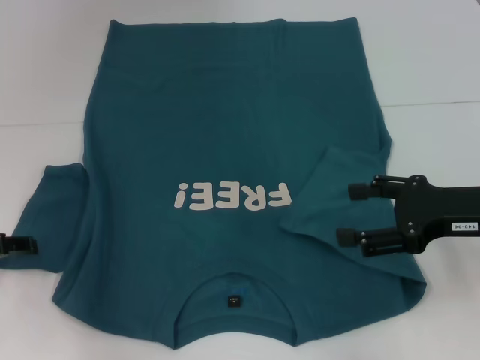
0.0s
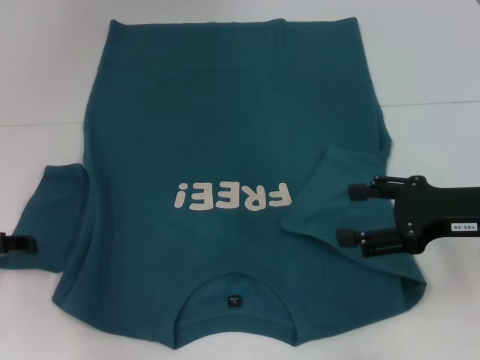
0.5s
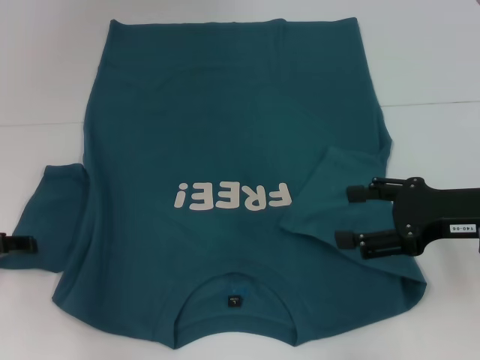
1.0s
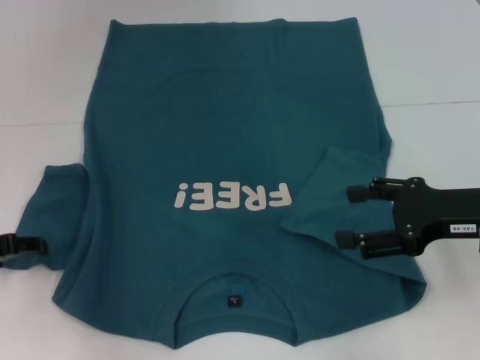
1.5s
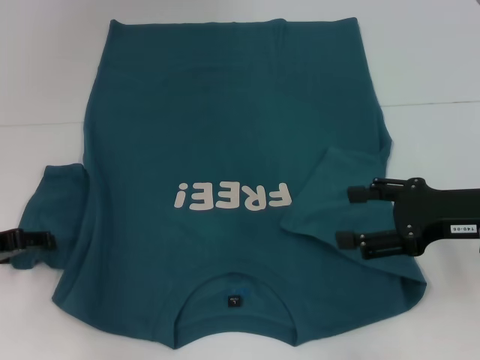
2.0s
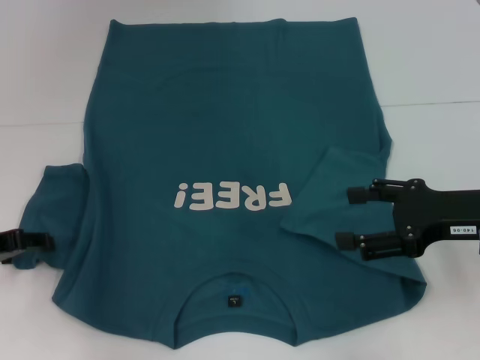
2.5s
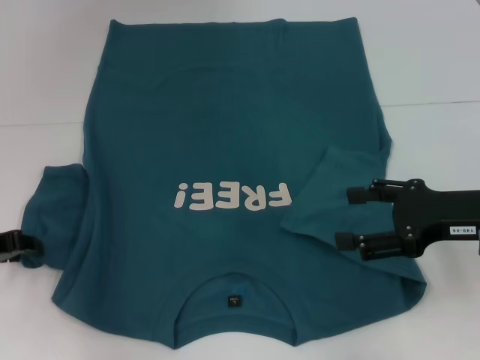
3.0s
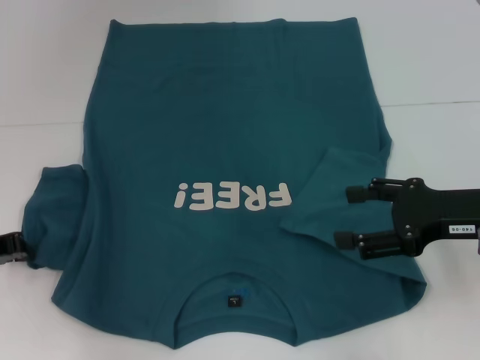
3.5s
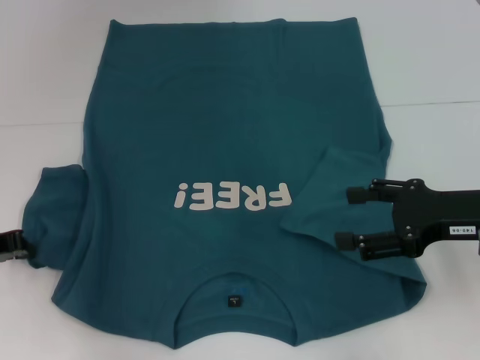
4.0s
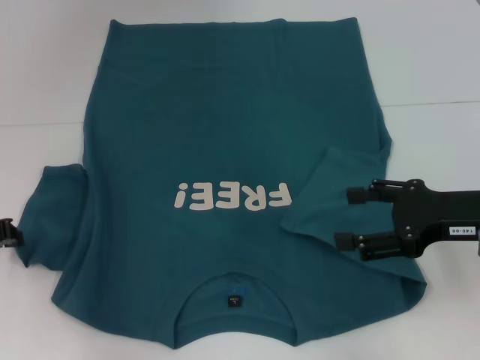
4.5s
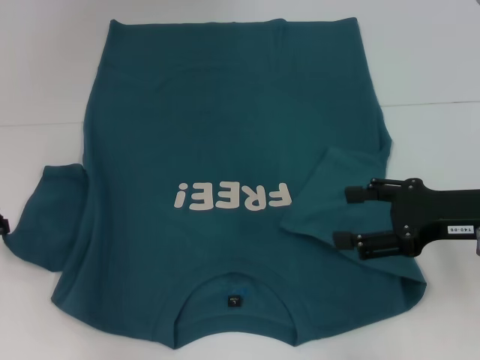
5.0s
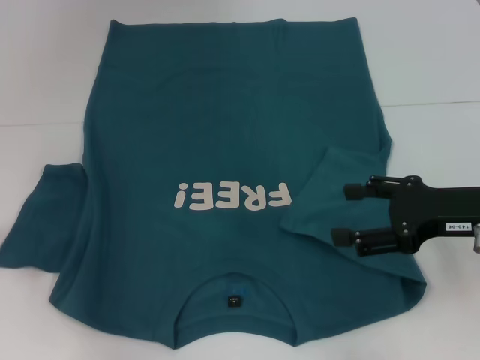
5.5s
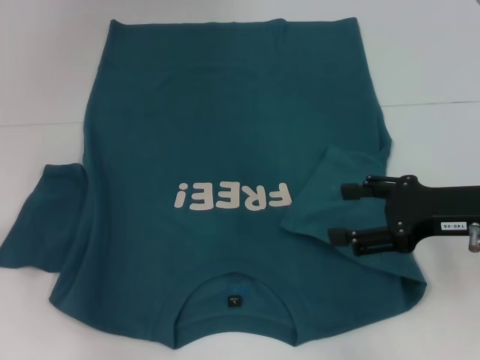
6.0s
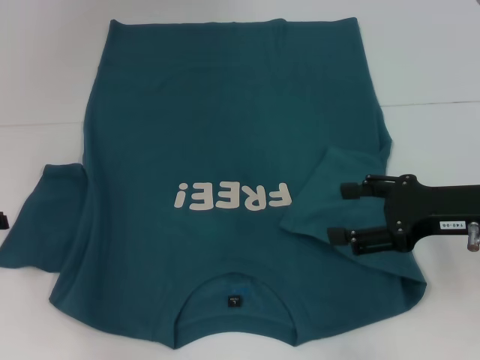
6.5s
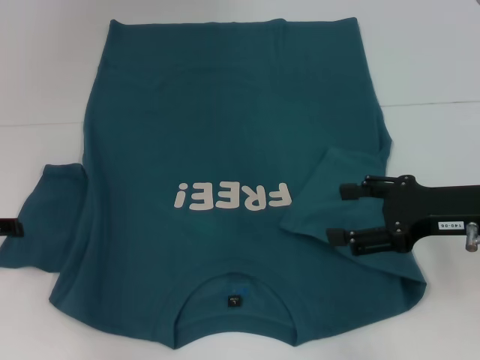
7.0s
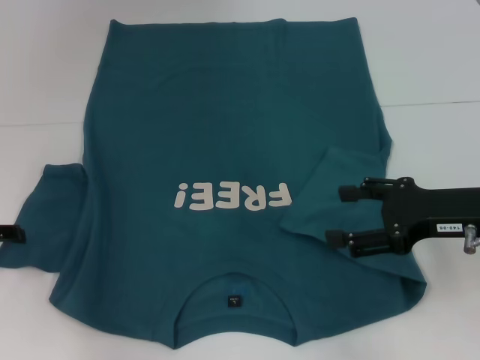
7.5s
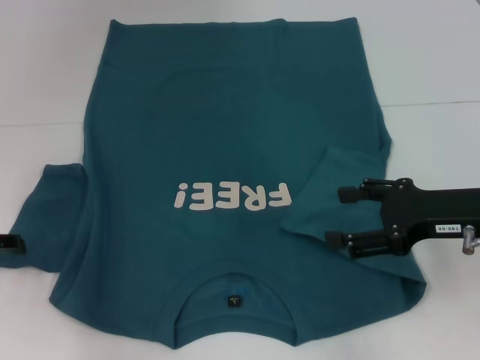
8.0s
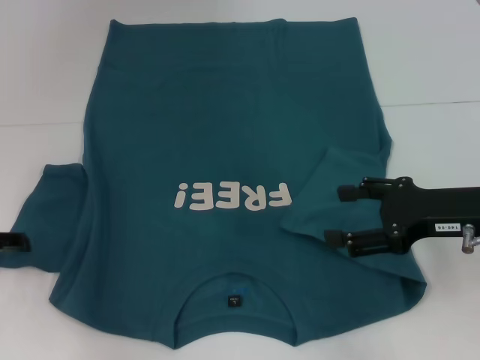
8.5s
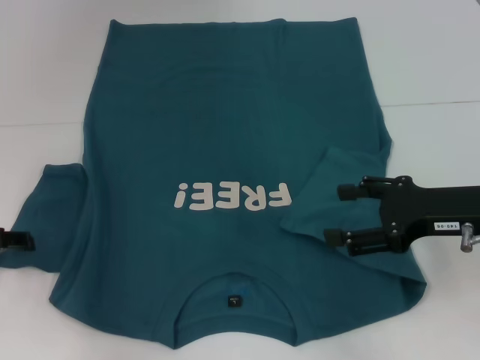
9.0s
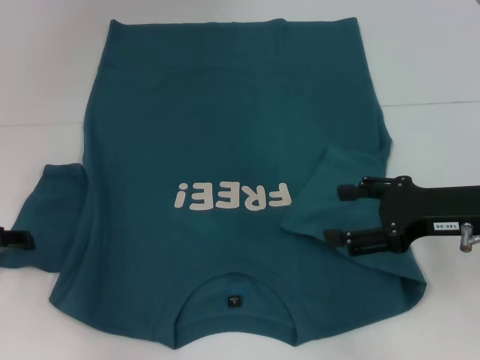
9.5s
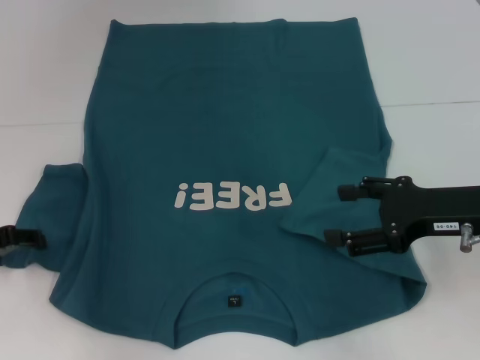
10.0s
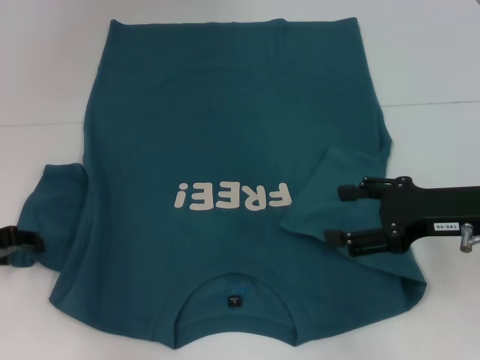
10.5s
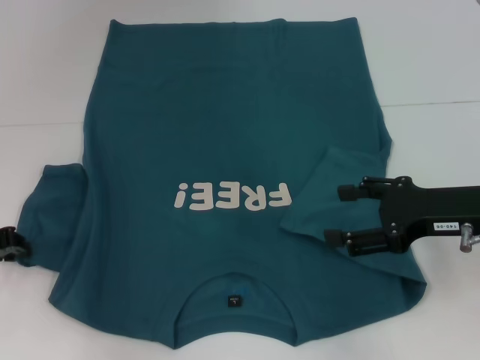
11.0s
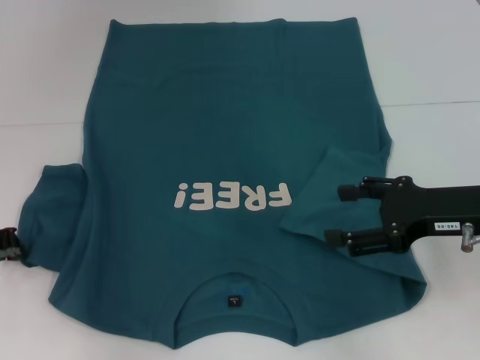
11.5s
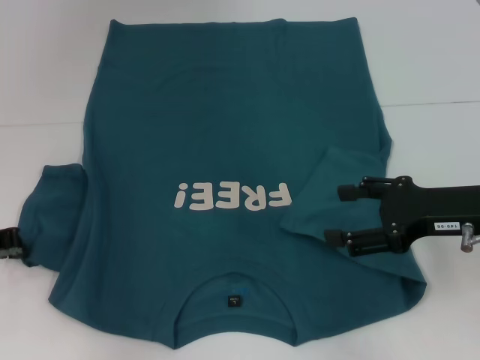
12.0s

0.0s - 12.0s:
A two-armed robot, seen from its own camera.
0.0s - 2.0s: Both grippers stay put.
2.0s - 4.0s: The left gripper closes up.
4.0s - 6.0s: The grippers stay close to where they were, moving slightly.
8.0s - 10.0s: The grippers move only a little.

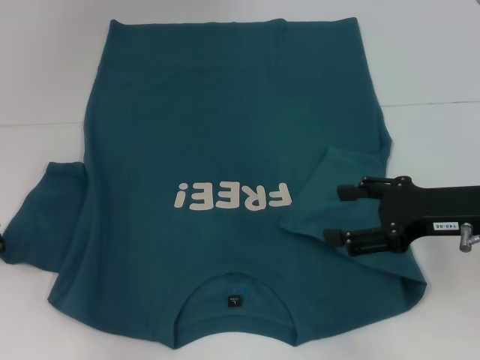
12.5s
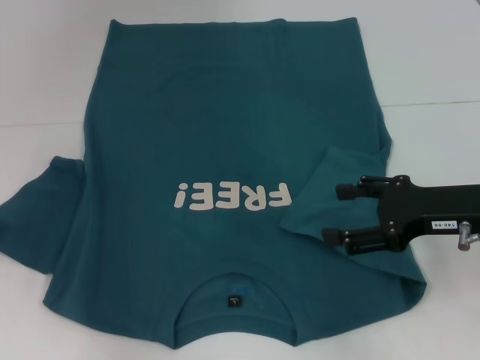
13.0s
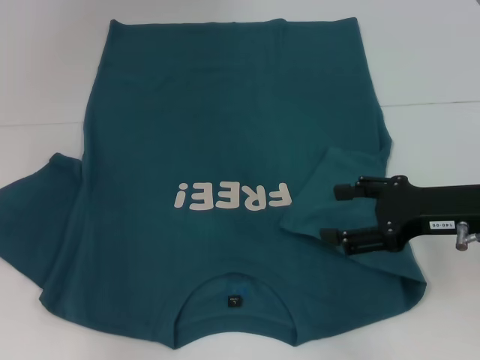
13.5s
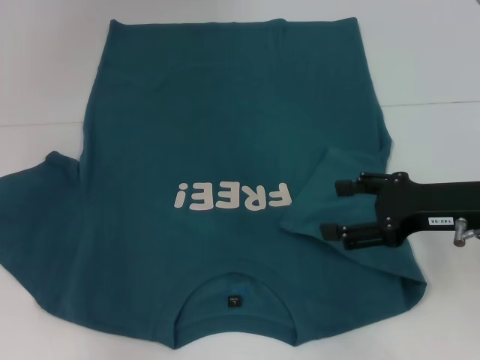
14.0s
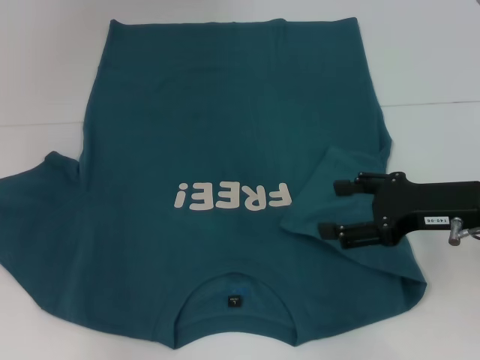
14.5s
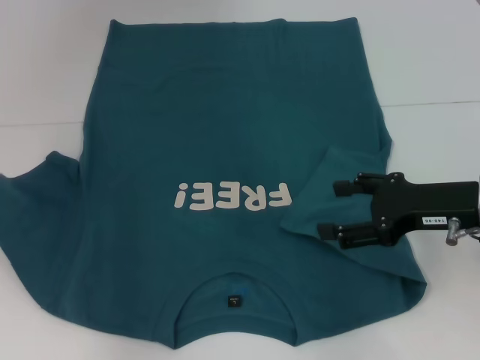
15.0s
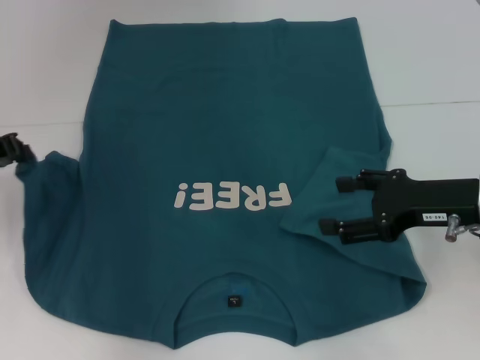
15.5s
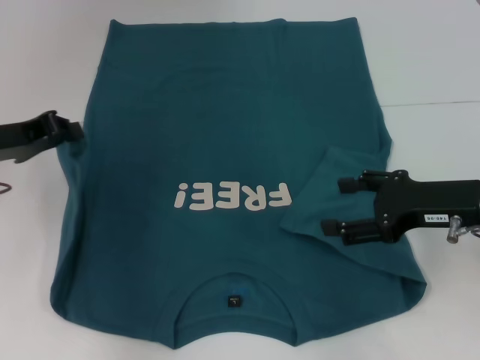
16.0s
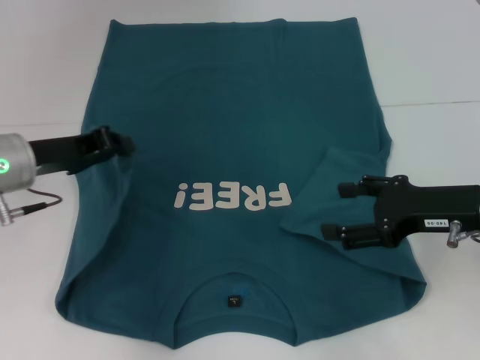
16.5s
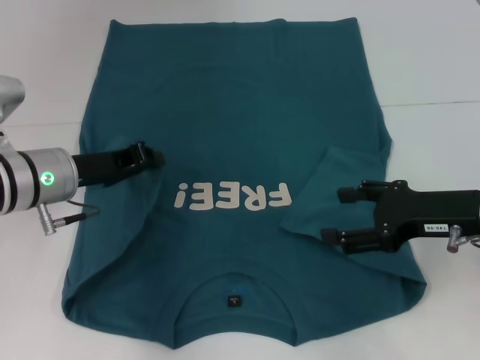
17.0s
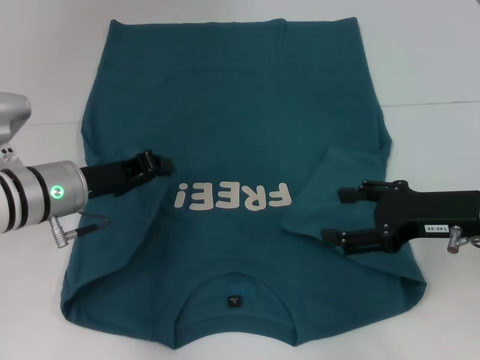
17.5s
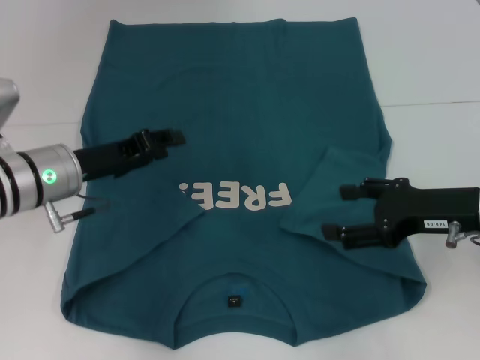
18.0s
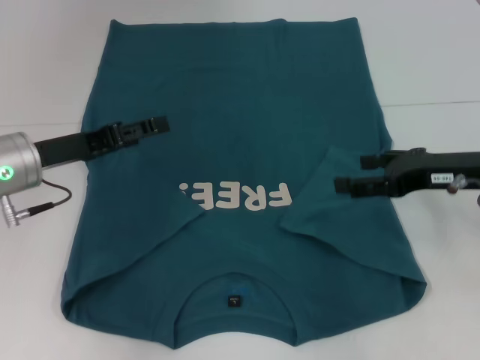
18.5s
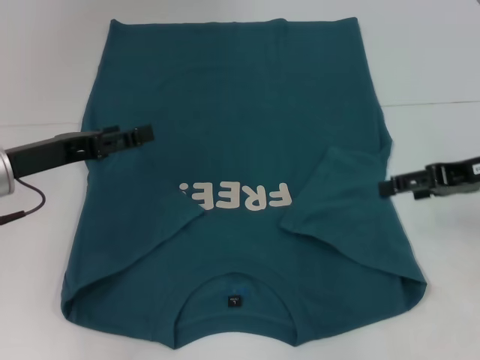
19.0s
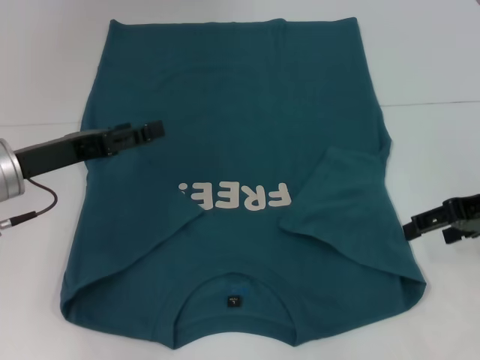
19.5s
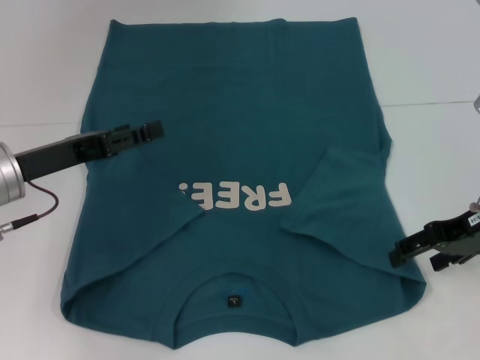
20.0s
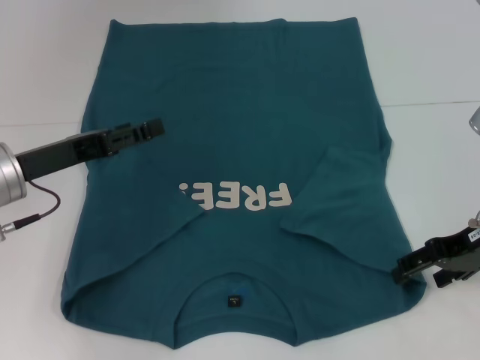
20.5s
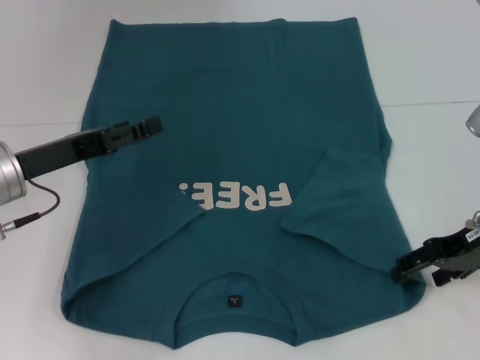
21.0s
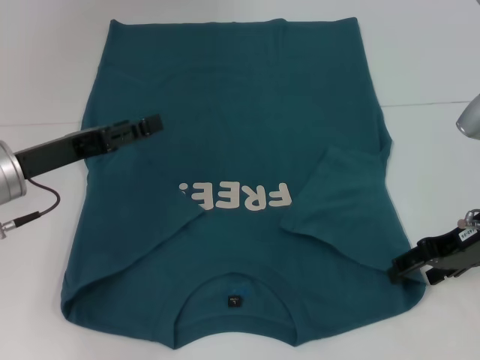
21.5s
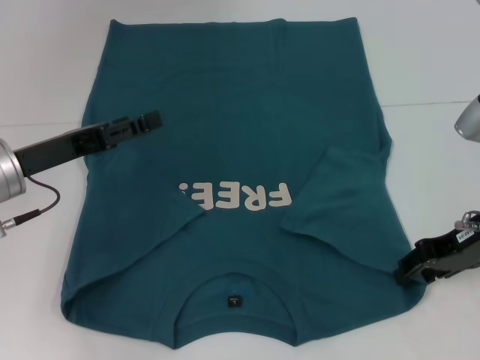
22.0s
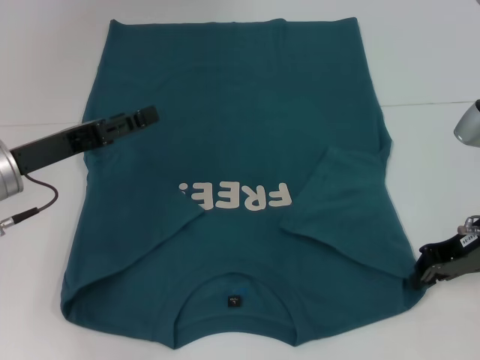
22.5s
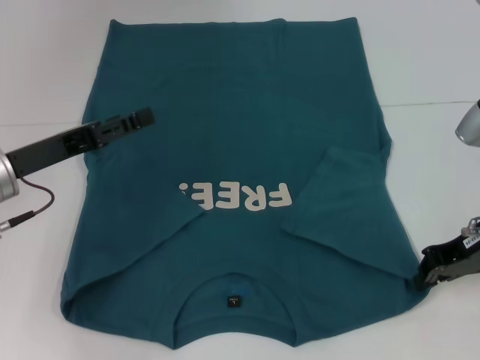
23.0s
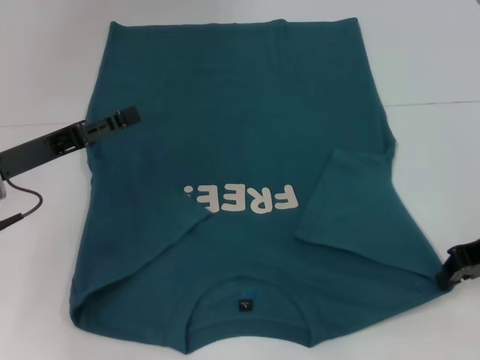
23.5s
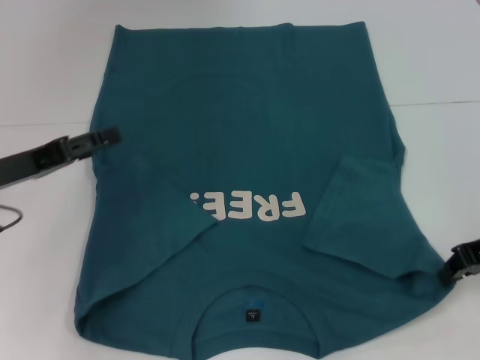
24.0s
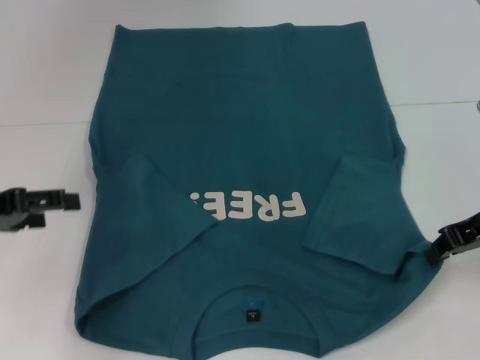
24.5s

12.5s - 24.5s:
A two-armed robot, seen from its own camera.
Step, 12.5s - 17.5s: Fold the bottom left sleeve with your left hand.
Step, 18.0s - 23.0s: Grab the bottom right corner with your right hand.
12.5s - 14.5s: The grippers make only small movements.
14.5s - 16.5s: The left gripper heads to the right, covering approximately 10 cm.
16.5s - 18.5s: The left gripper opens its fingers.
20.5s - 22.5s: The right gripper closes up.
22.5s - 24.5s: The left gripper travels to the left by some 5 cm.

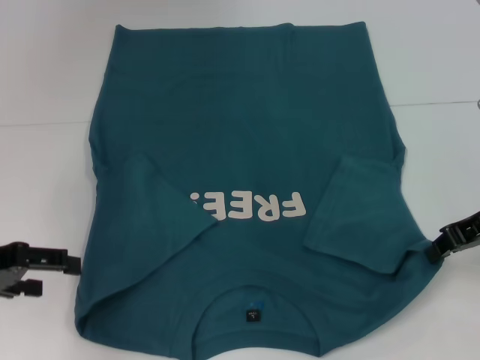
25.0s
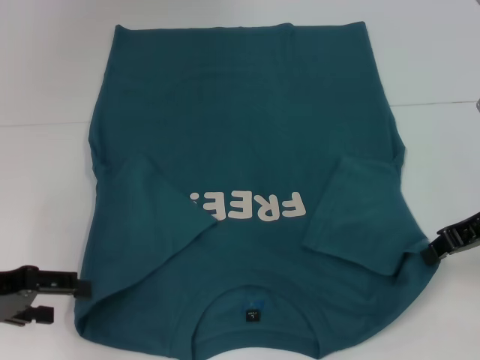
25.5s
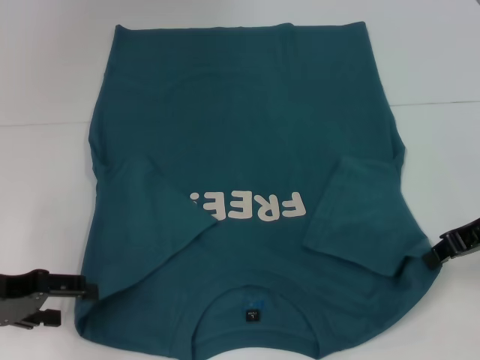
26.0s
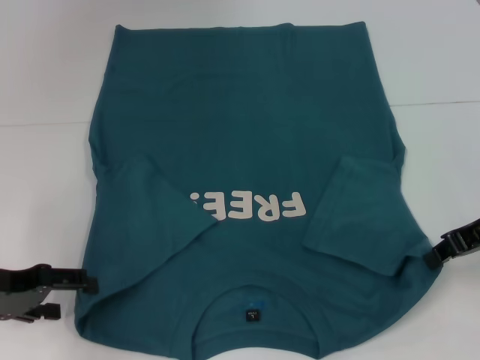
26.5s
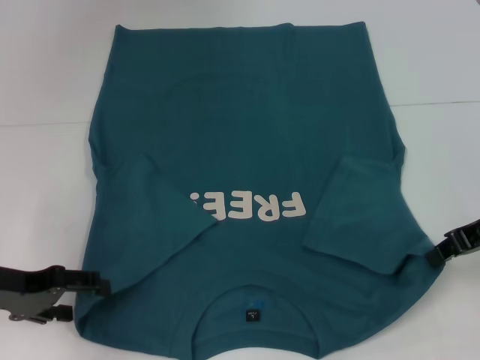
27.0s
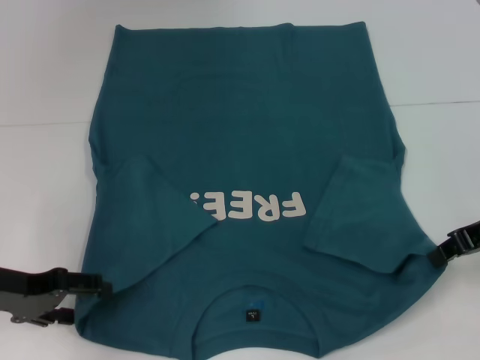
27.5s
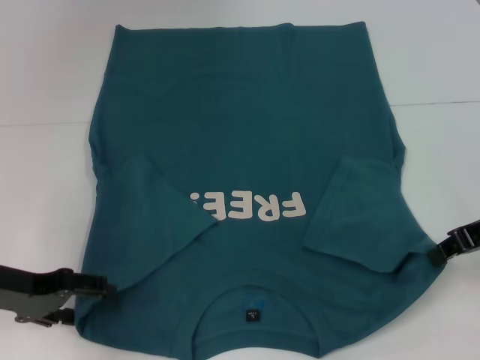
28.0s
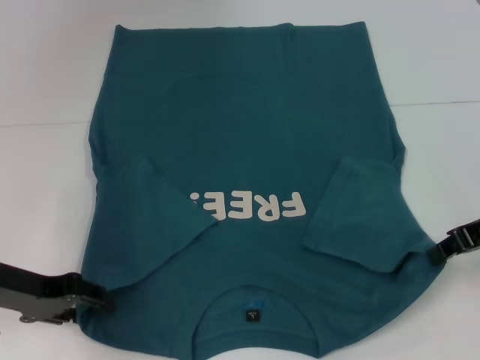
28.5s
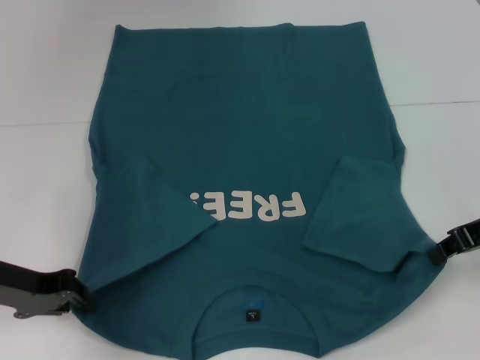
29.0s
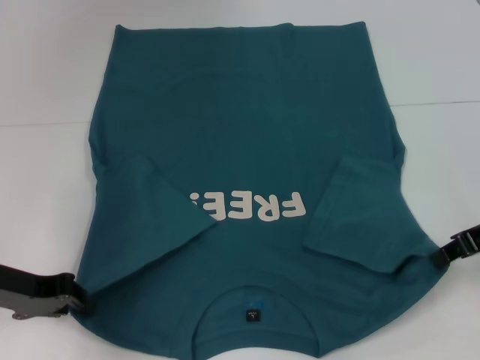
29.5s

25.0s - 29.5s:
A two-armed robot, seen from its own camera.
Step, 25.0s - 29.0s: Grab the bottom left corner with your left hand.
25.0s - 27.0s: The left gripper changes place by approximately 5 cm.
27.0s - 29.5s: The left gripper closes up.
